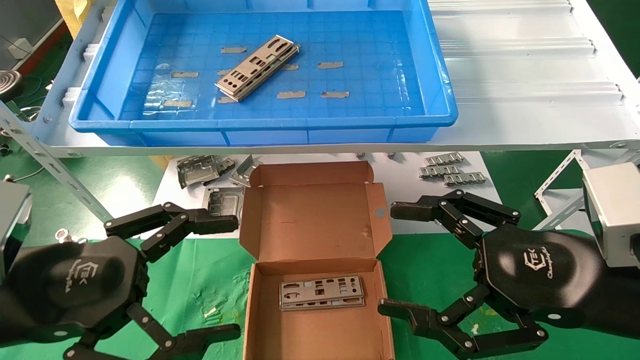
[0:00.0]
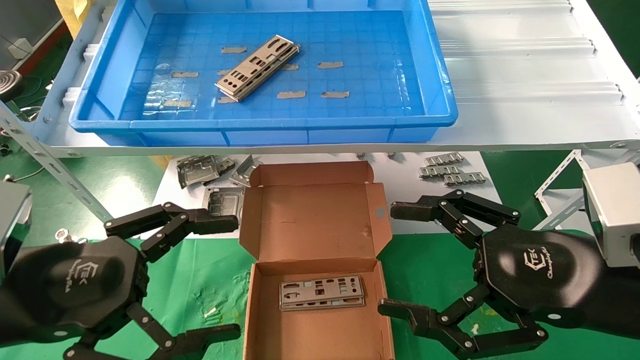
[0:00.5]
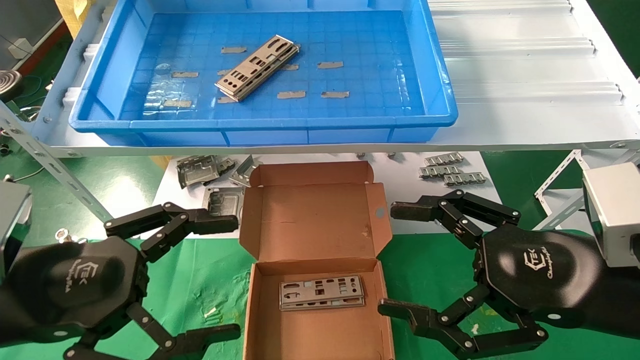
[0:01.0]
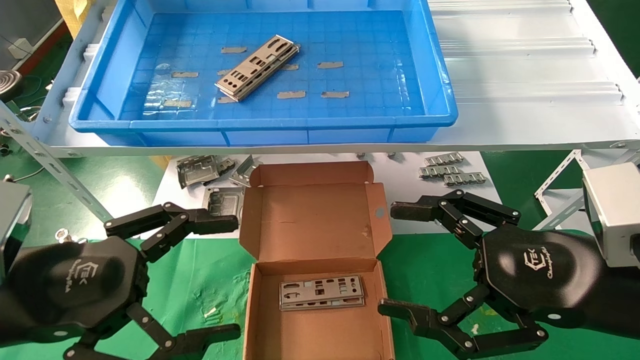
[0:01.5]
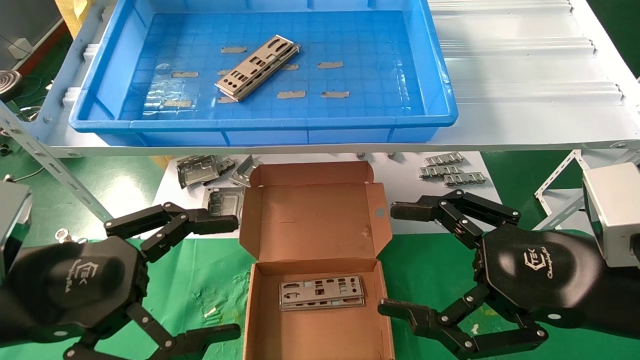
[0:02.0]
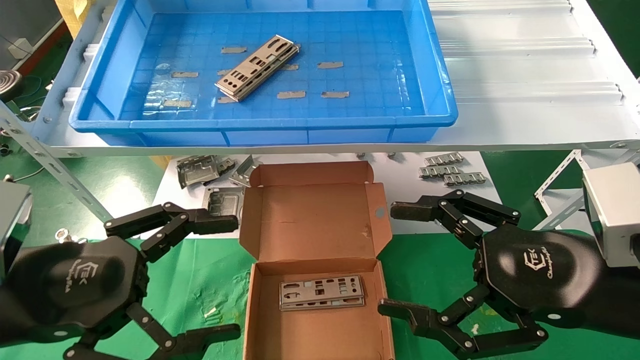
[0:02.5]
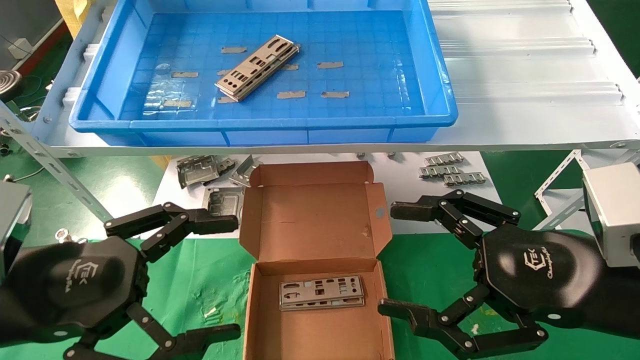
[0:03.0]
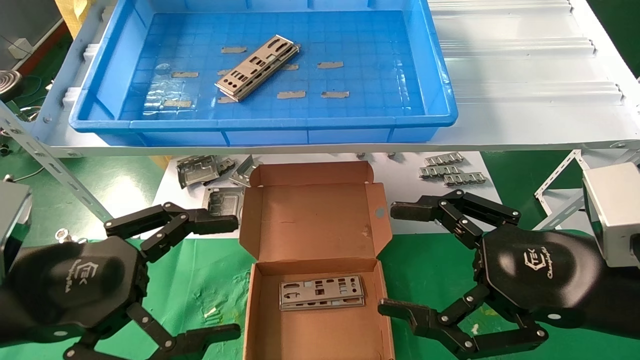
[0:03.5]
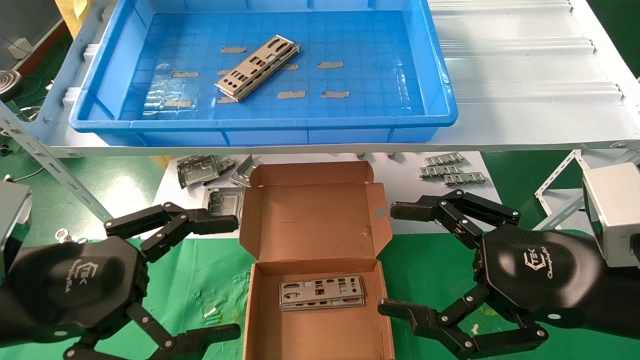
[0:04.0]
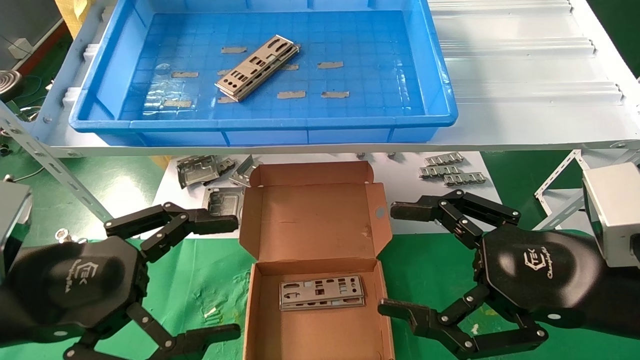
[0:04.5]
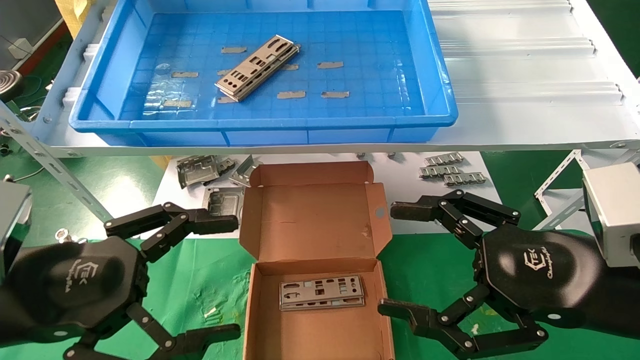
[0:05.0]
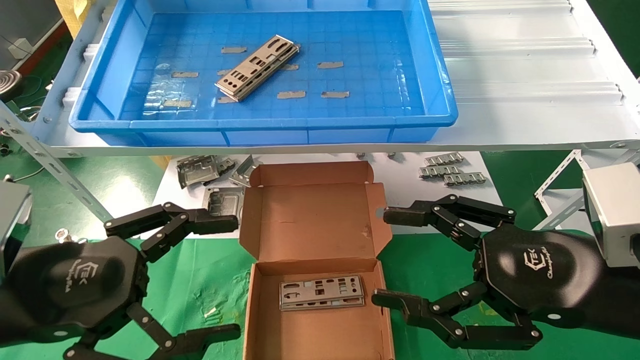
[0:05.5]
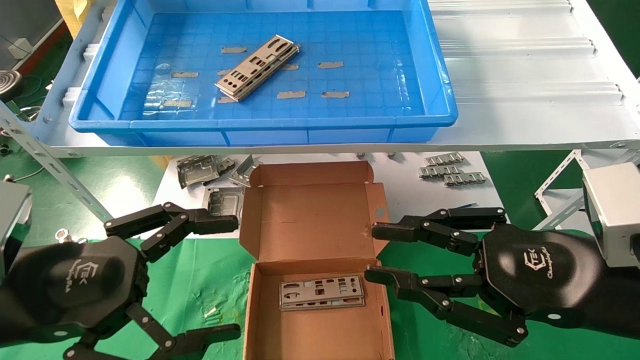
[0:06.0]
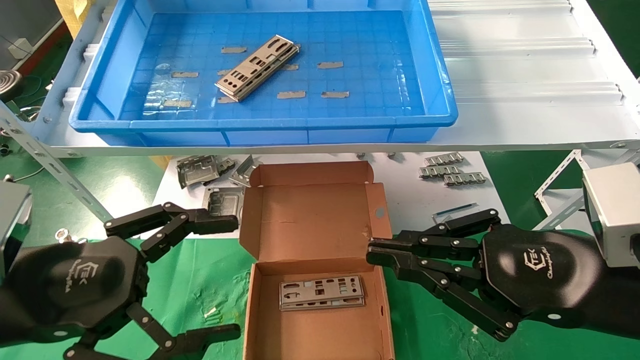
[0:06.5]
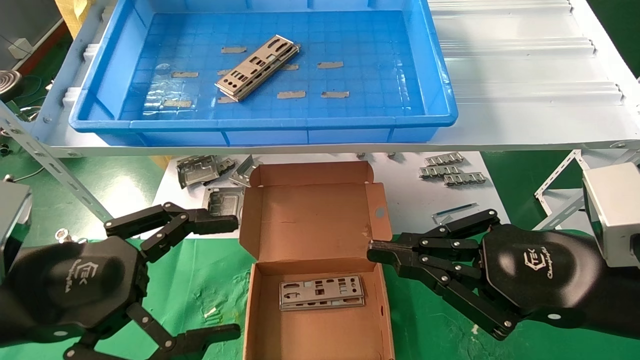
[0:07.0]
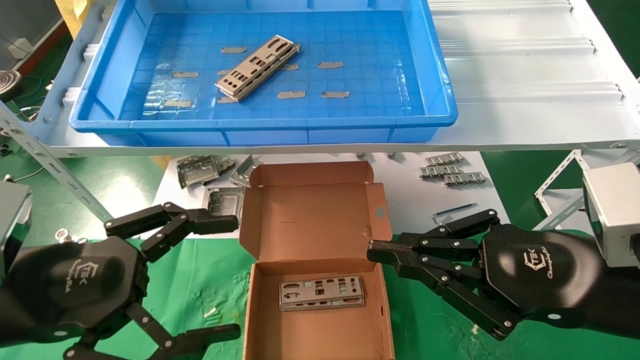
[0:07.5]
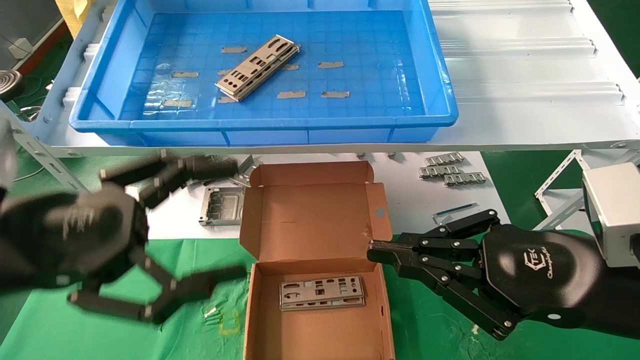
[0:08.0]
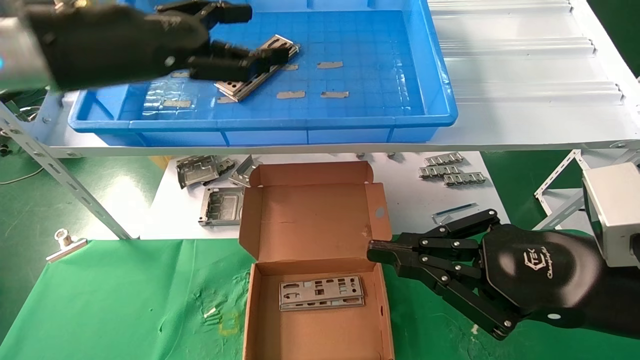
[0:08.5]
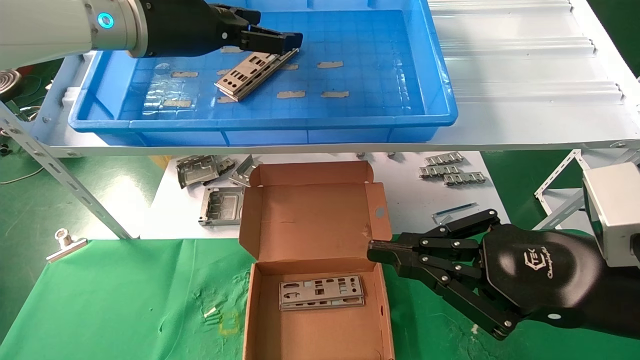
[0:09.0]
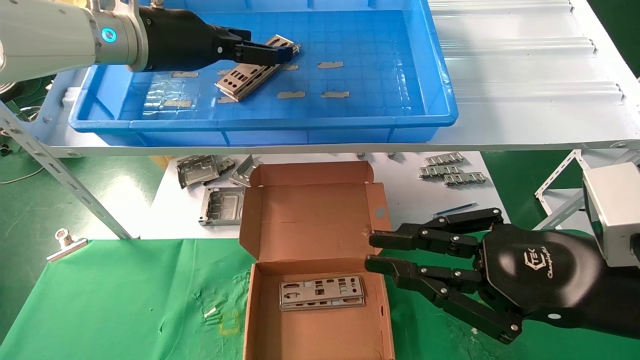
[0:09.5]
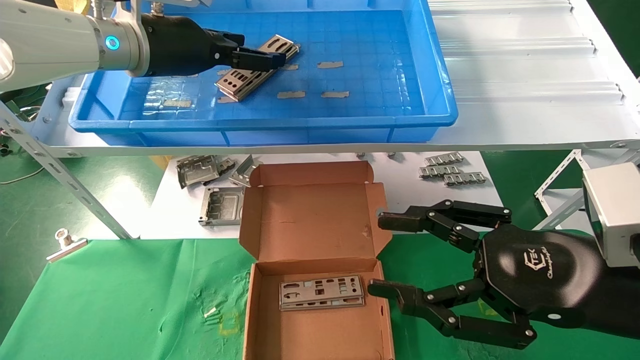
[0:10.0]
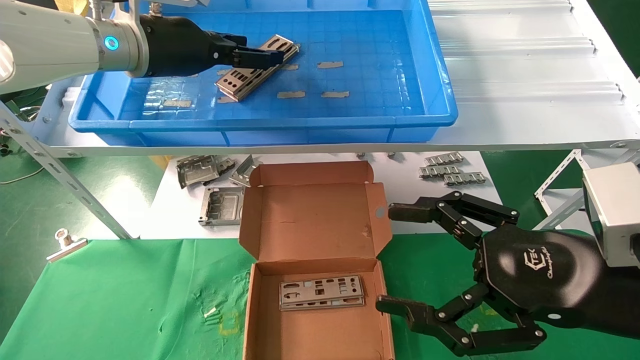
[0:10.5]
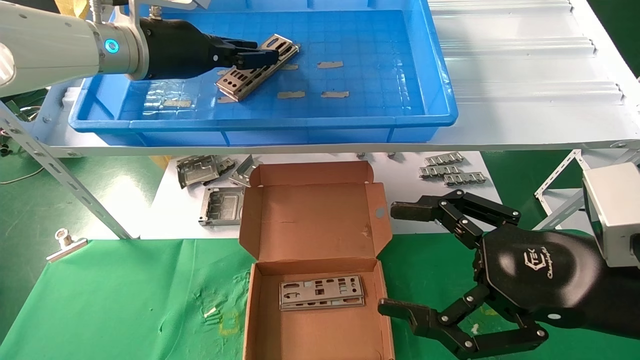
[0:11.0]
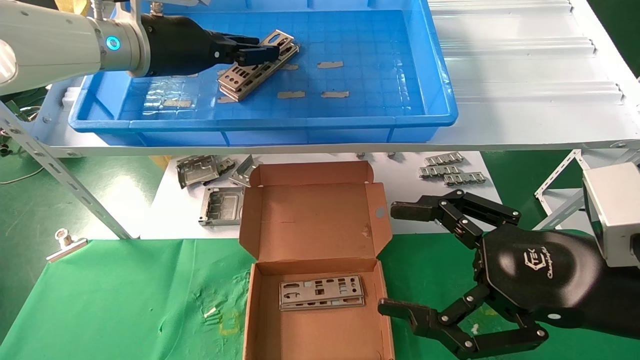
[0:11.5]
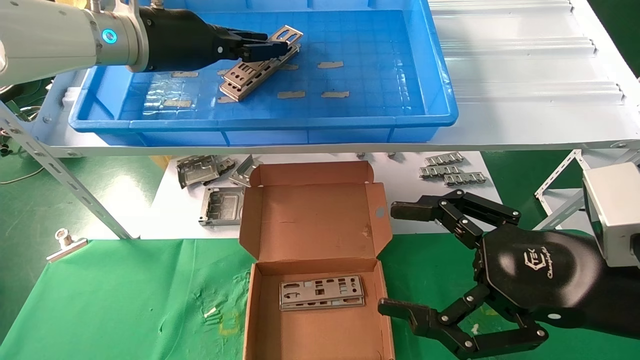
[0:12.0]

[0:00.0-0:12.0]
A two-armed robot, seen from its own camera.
Task of the whole recording: pick up the parts on the tray and put them in the cardboard box.
Step, 0:08.5 to 0:11.0: Pick up the IO bracket from the container box.
0:00.0 to 0:04.0: Neither gripper changes place.
0:04.0 to 0:06.0: The right gripper closes up.
0:06.0 to 0:08.0: The right gripper closes, while the left gripper changes place by about 5 cm.
0:08.0 to 0:10.0: The right gripper opens its fingers. Meanwhile the left gripper heads forward and upward, covering roughly 25 cm.
0:10.0 to 0:12.0: The left gripper closes. The right gripper opens up.

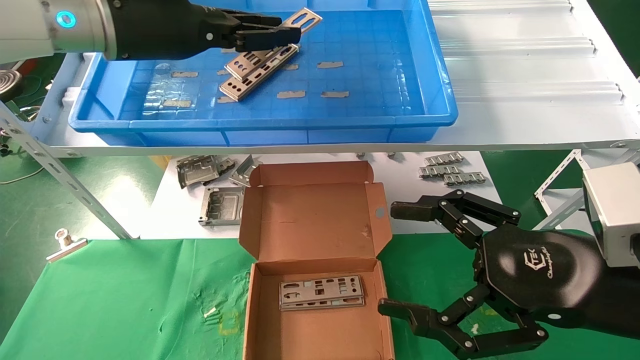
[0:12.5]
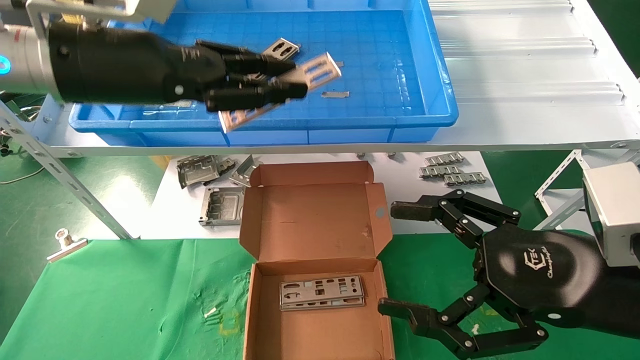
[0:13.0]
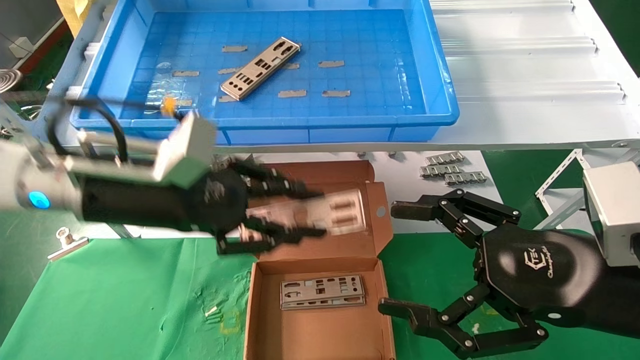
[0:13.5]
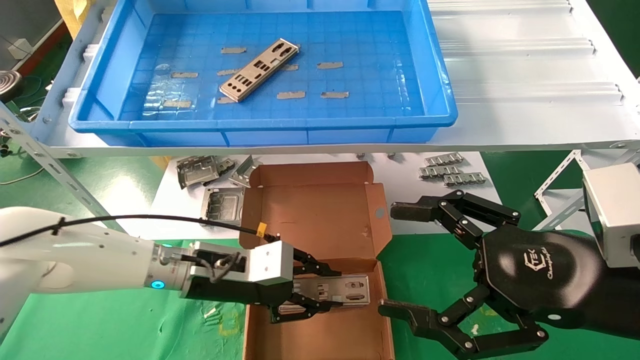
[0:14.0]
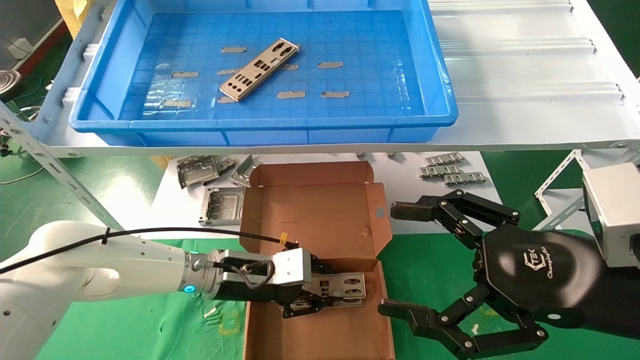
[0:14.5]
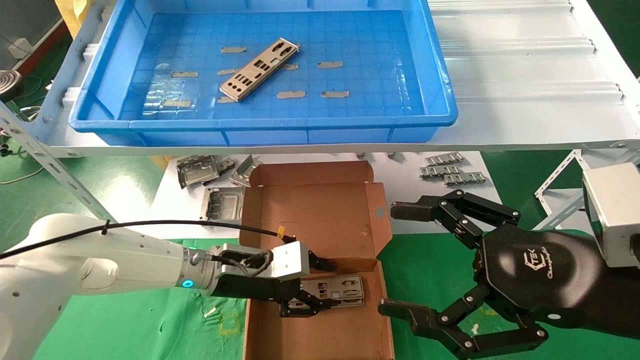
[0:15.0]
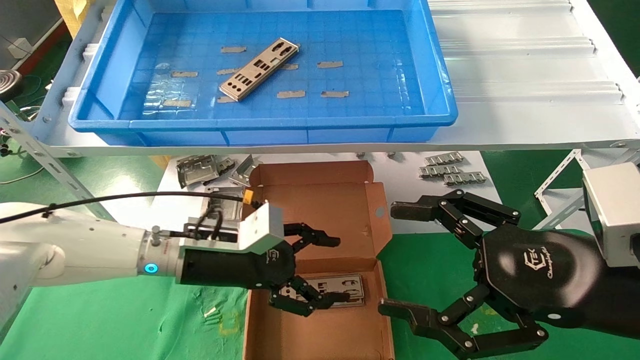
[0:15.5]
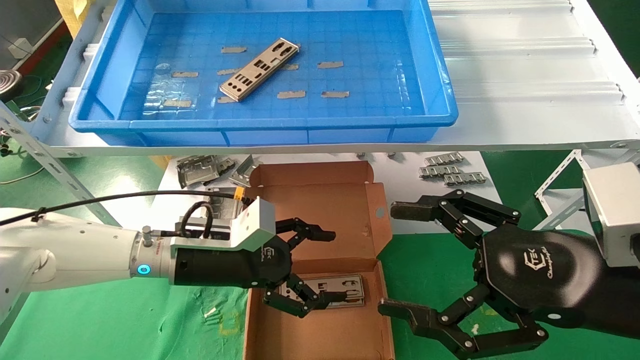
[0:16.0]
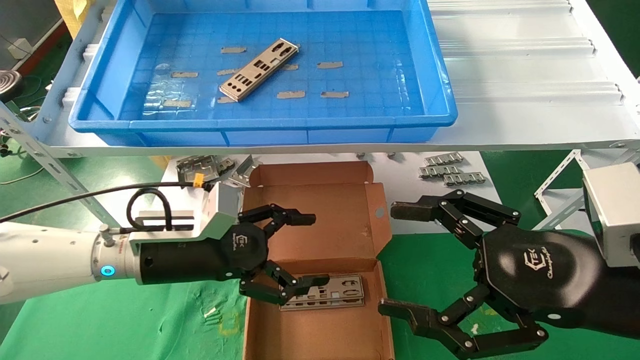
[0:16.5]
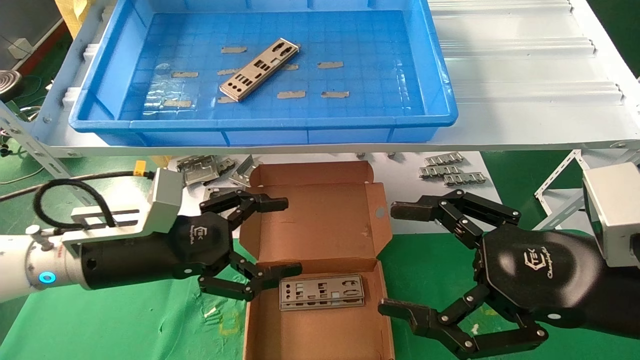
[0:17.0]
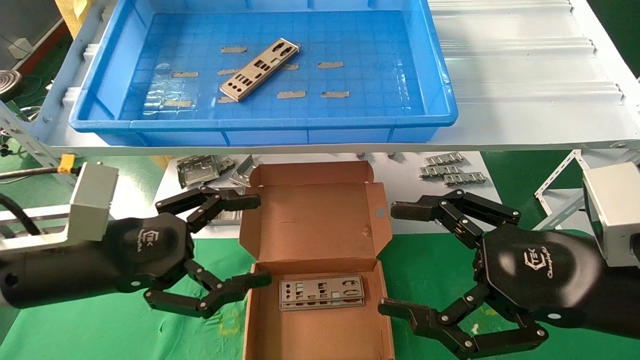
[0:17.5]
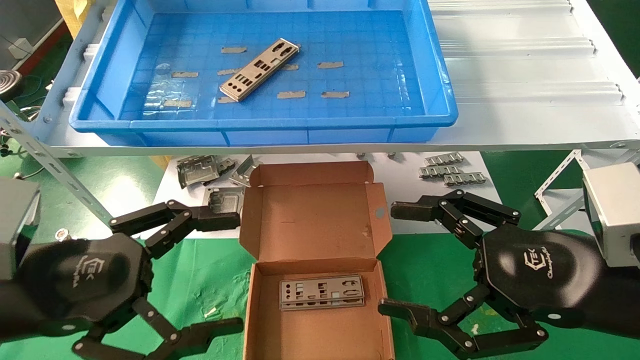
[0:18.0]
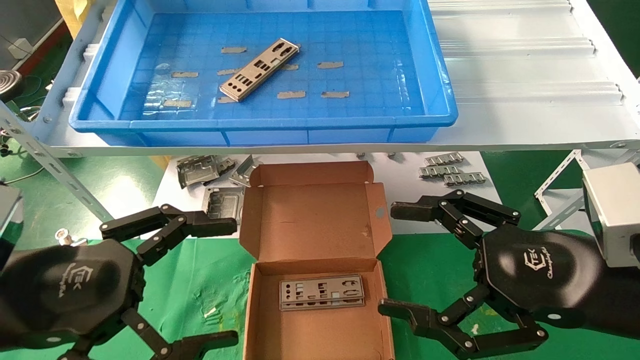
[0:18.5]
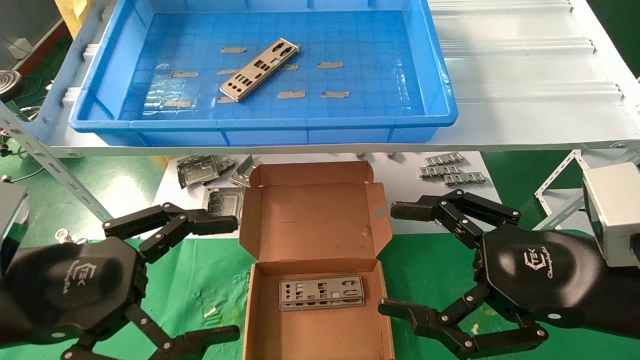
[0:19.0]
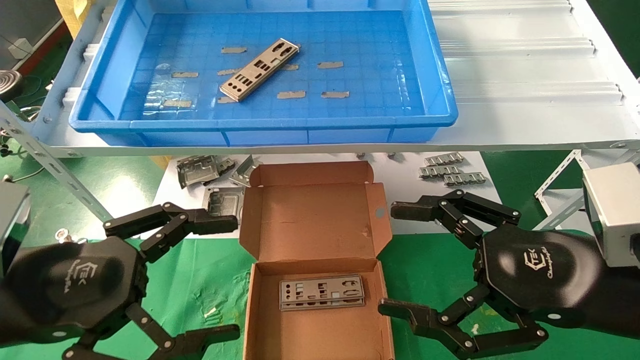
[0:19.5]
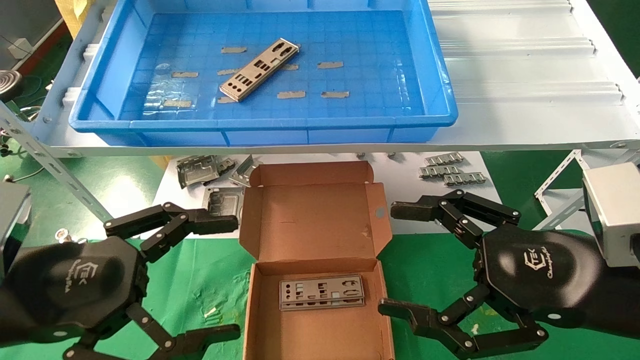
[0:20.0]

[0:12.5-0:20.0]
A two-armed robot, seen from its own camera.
Task of the whole recording: pick up the parts on the tray and put them in the cardboard box.
Step, 0:12.5 to 0:15.0: Place the IO bracket into the ingredient slot.
0:12.5 to 0:14.5: The left gripper goes some 35 cm downward.
0:14.5 to 0:16.5: The left gripper travels upward, to the left and backward by roughly 10 cm, and opens its fingers.
0:16.5 to 0:18.0: The left gripper is displaced backward and to the left by approximately 15 cm.
0:18.0 to 0:20.0: The grippers stay close to where they were, moving slightly.
